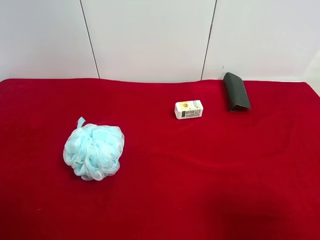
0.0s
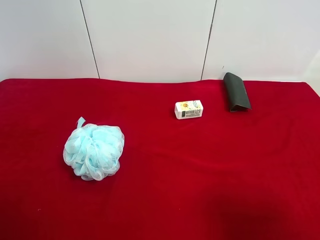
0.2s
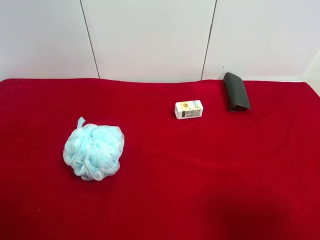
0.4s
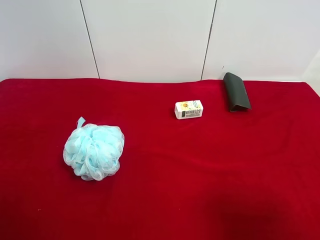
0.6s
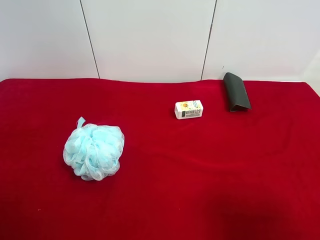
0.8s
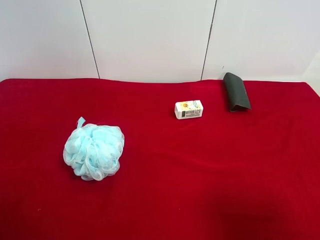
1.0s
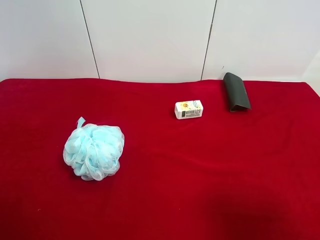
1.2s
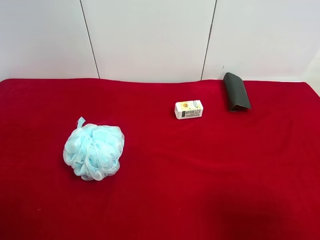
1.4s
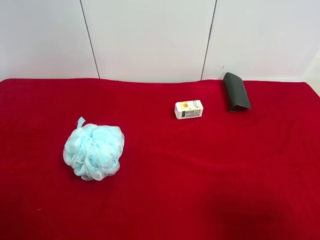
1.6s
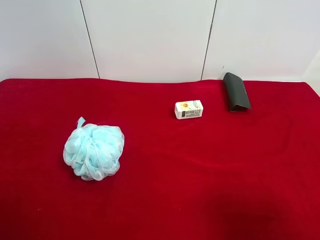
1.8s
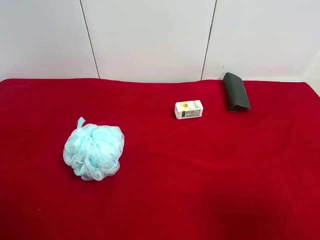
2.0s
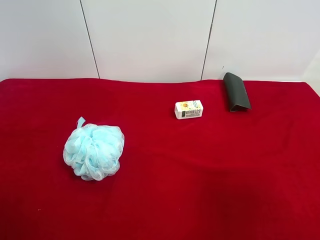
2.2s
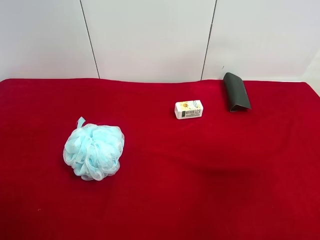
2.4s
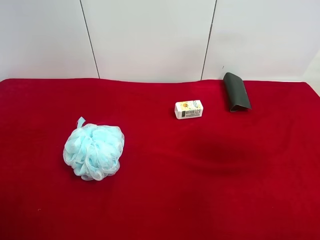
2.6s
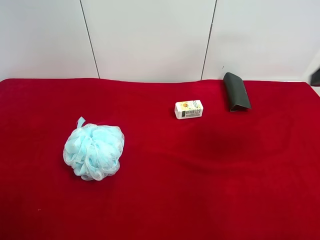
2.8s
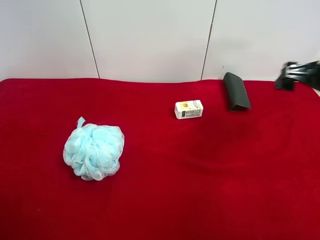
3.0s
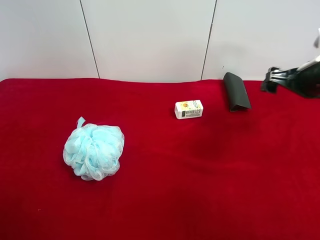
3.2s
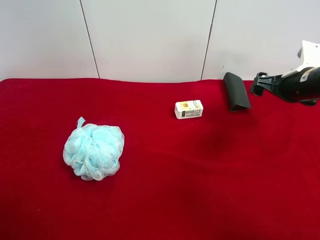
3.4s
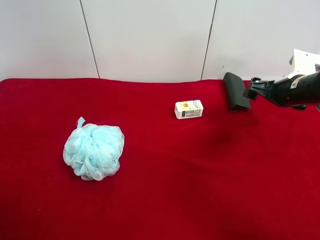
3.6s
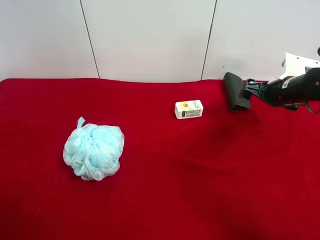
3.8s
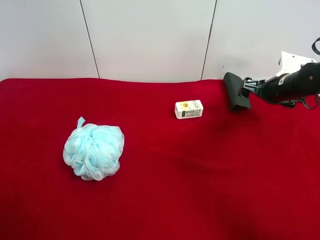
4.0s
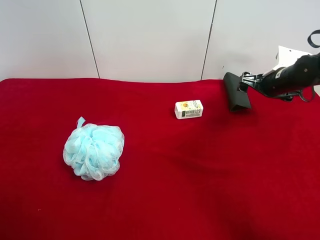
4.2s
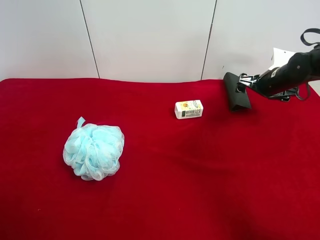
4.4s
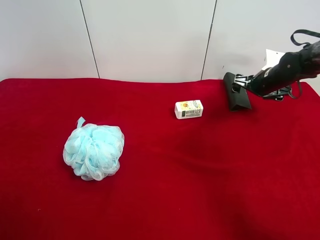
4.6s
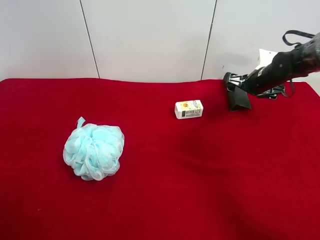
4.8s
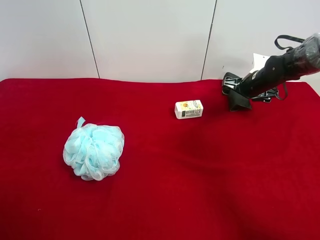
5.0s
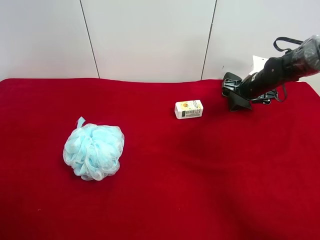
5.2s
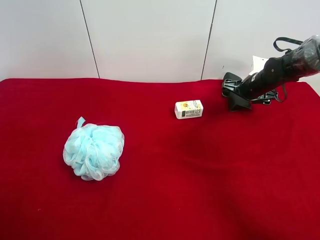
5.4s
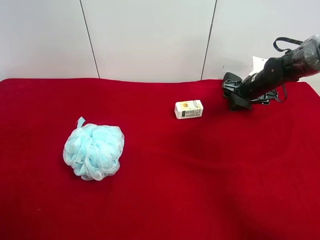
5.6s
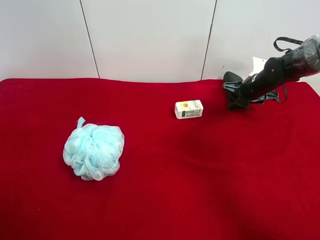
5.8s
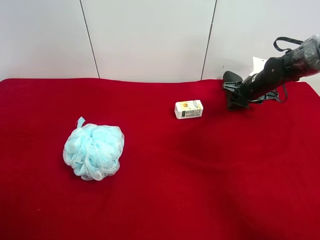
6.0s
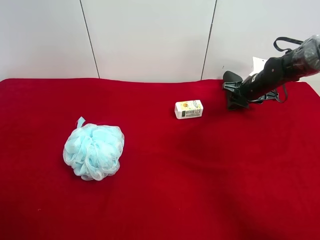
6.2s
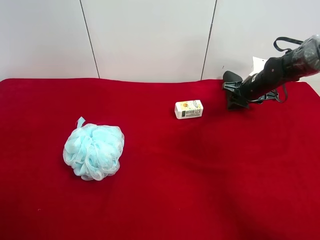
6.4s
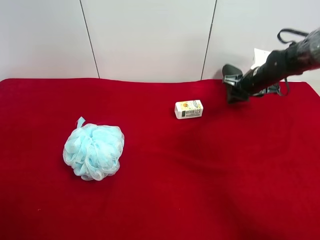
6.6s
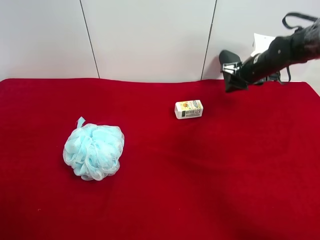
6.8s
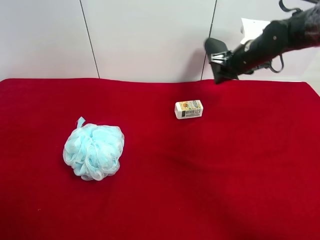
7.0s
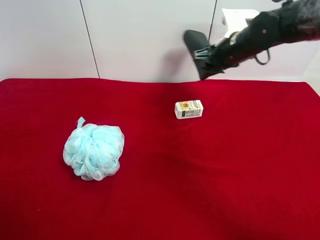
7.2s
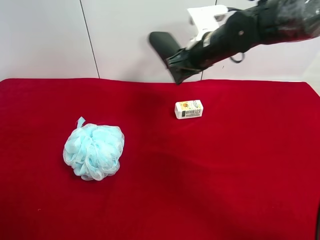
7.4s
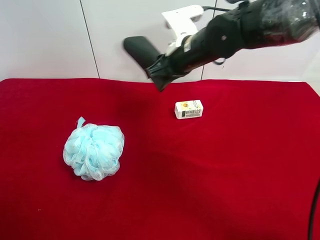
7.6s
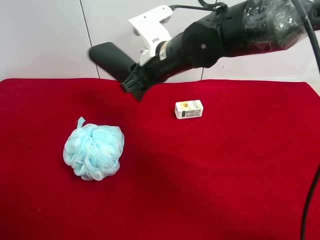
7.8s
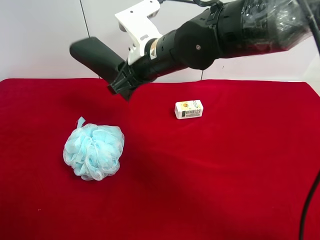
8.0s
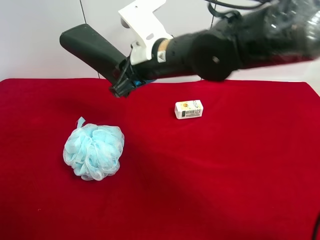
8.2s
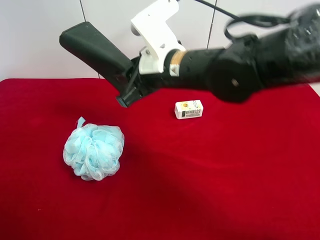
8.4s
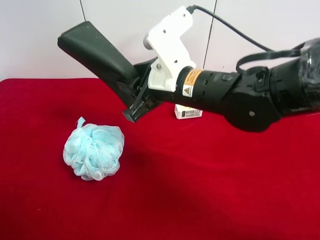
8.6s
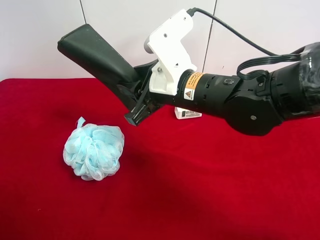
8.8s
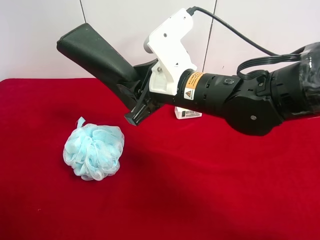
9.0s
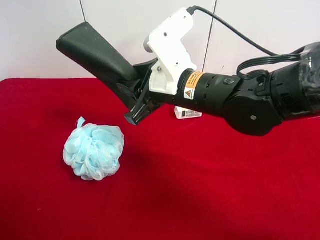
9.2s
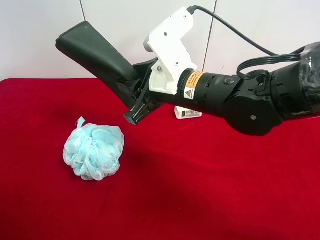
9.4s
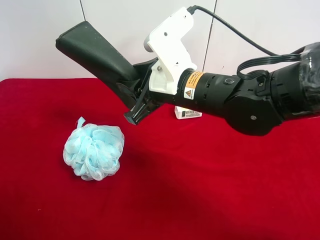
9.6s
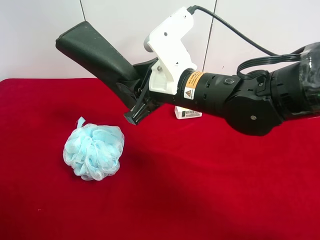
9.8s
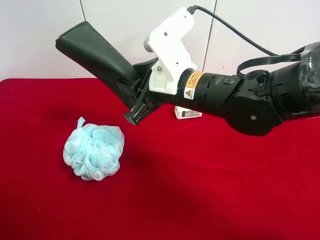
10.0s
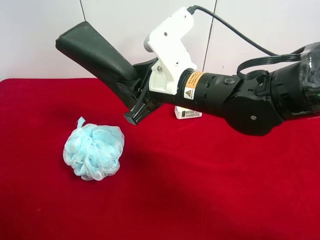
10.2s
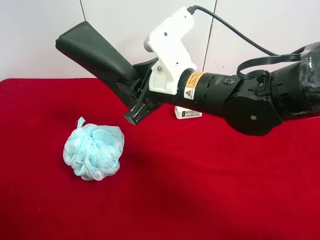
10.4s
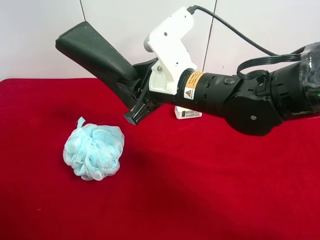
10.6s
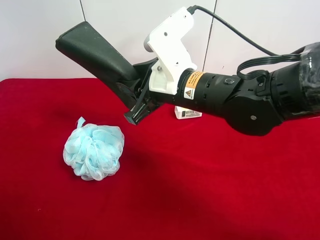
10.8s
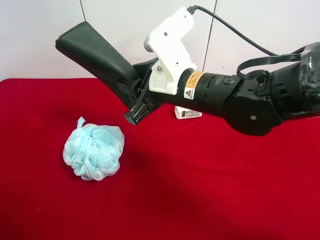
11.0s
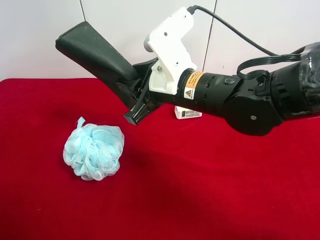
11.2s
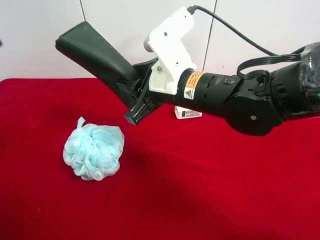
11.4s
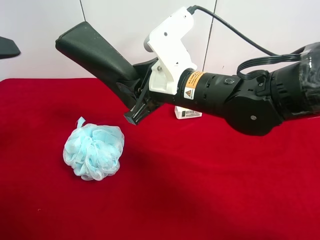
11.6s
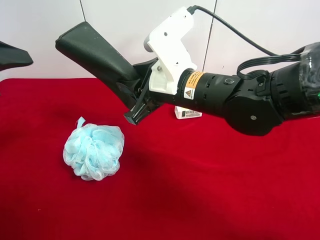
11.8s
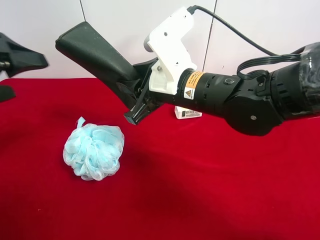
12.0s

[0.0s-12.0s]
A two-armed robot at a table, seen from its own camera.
Task of the whole recording: use the right gripper to pick up the item and transfer it from the right gripper to the left gripper.
Step, 0.0s to 5.8s: Use the right gripper to grab the eyeglass case on the right side of the table.
0.0s to 1.6s: The two grippers keep their place.
1.6s to 3.0s: The right gripper goes some 25 cm forward.
3.0s to 4.4s: The right gripper travels forward and downward by about 20 cm.
4.4s to 6.0s: The right gripper ends up about 5 cm from where it was, and closes up.
6.0s to 7.6s: The right gripper is displaced to the left and upward by about 25 cm.
7.6s to 9.0s: The right gripper heads backward, covering approximately 10 cm.
9.0s to 10.4s: The grippers make only small movements.
10.4s to 12.0s: The left gripper shifts about 20 cm forward.

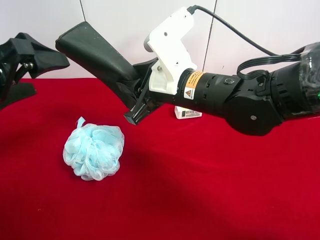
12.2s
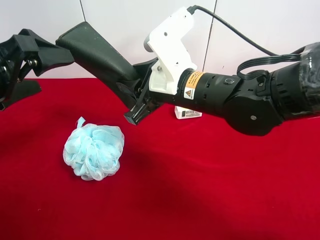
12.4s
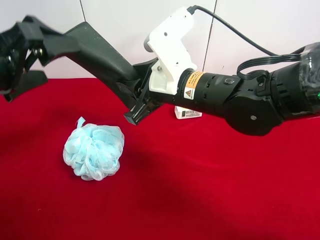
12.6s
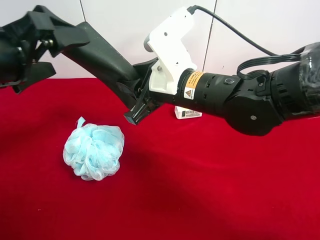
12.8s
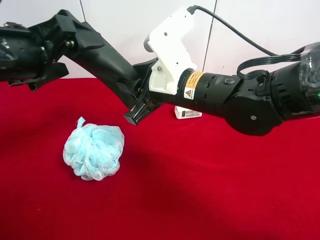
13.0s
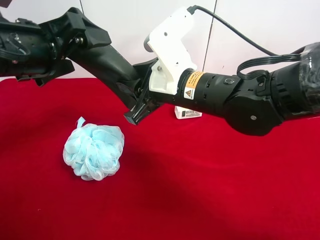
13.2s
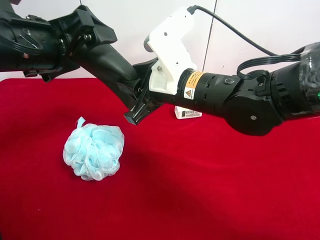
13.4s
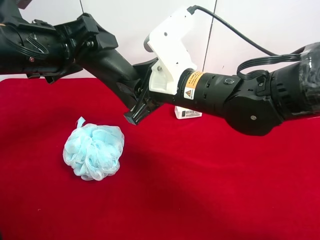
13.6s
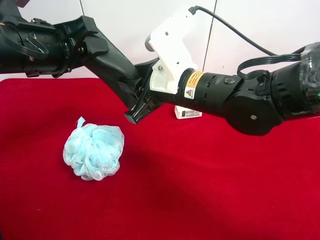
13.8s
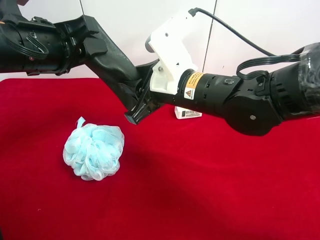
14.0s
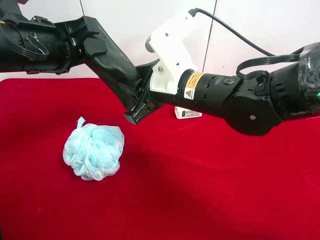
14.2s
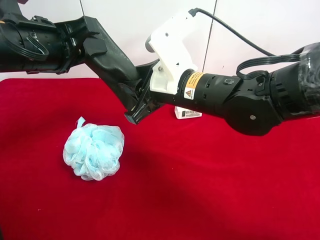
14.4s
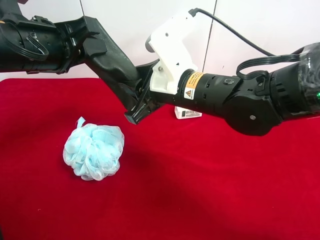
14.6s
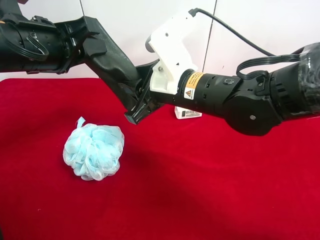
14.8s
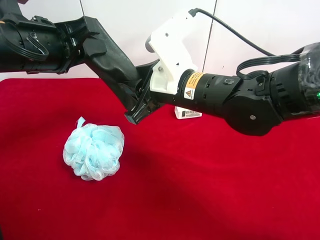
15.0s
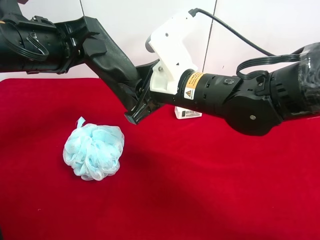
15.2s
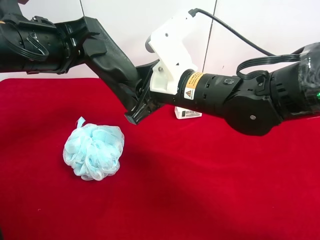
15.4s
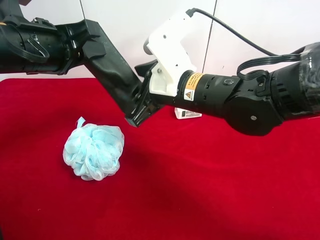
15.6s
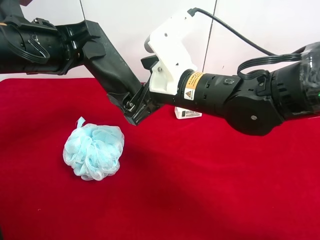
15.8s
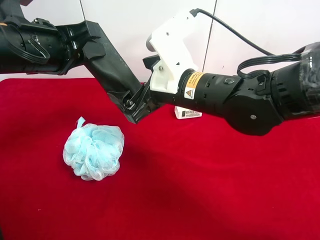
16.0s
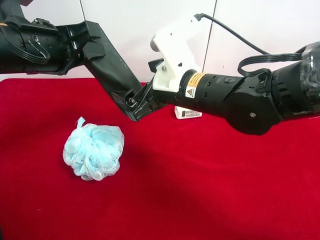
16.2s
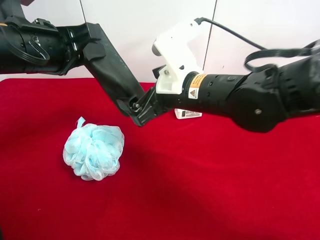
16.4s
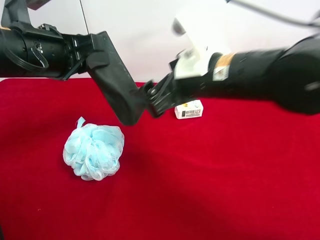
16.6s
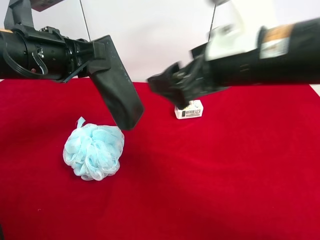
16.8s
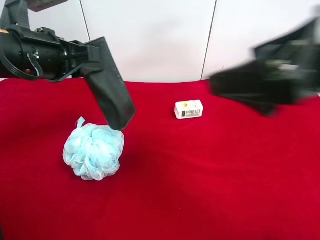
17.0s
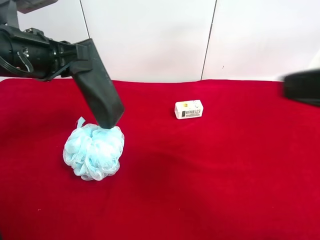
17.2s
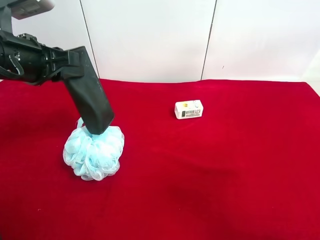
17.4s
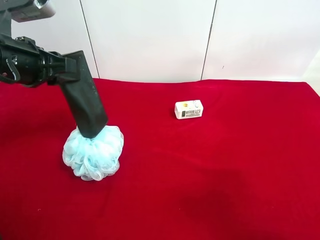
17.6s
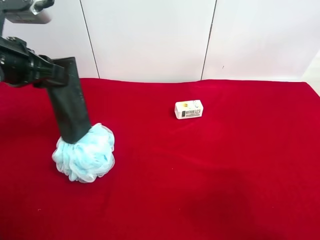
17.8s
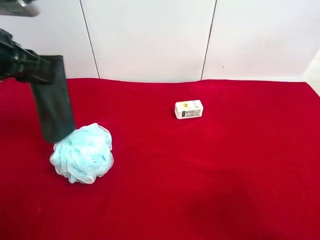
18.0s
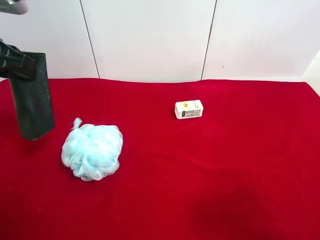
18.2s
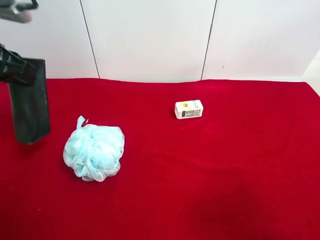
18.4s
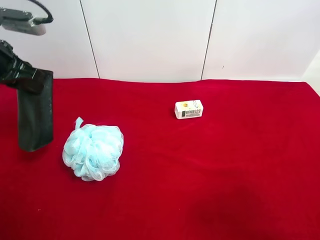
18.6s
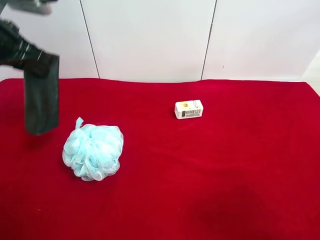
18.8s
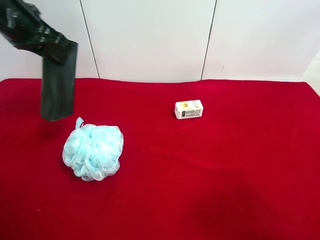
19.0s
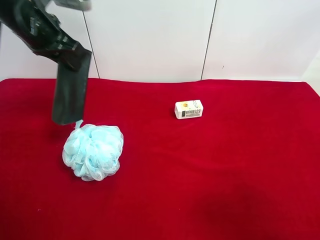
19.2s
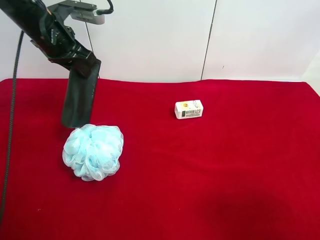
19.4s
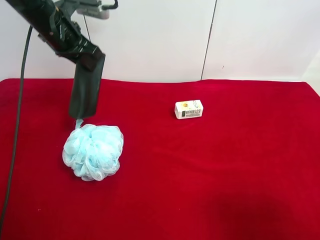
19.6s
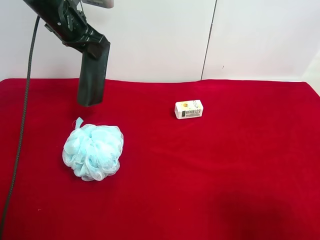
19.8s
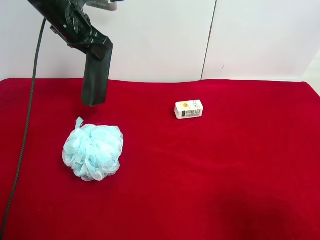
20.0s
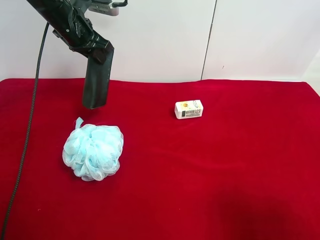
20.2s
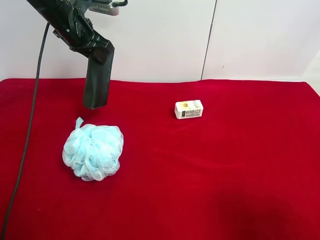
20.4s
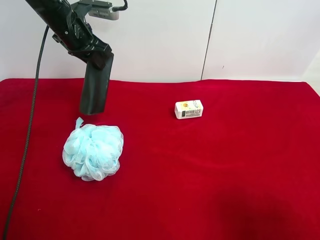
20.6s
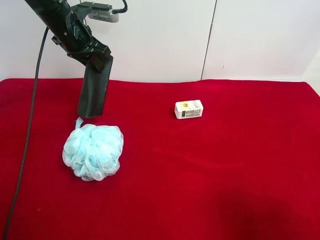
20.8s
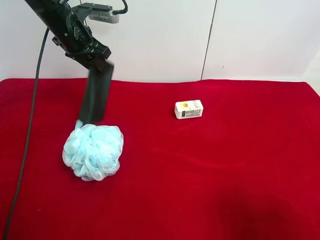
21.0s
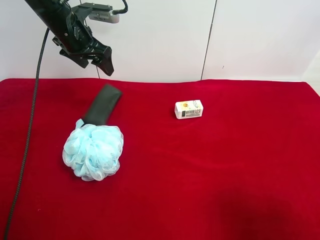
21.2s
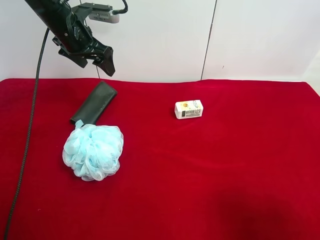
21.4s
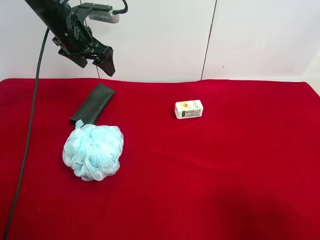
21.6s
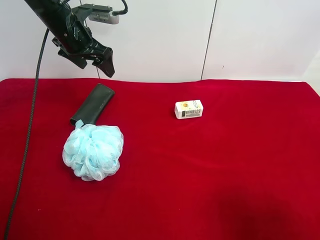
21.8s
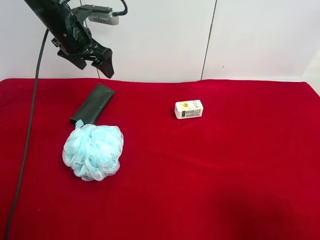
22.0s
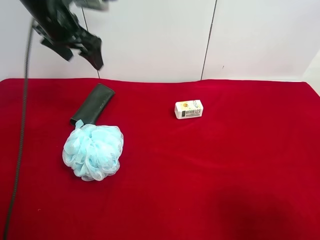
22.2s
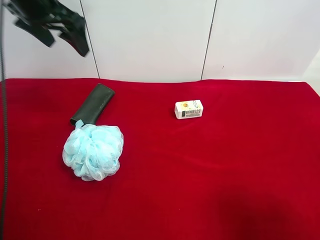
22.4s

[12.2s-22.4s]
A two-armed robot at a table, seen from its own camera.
Task of the whole recording: use the right gripper to pick up the item and transfer it from the right gripper to the left gripper.
Step, 12.2s to 15.6s: Pass the eyeglass case to the left gripper.
Step, 15.8s to 21.2s: The left gripper places eyeglass case on the left side of the table.
12.2s to 13.6s: The left gripper moves to the right and forward, approximately 10 cm.
13.6s to 15.2s: The left gripper closes its fingers.
15.2s to 16.6s: The right gripper changes place by roughly 5 cm, and opens up.
16.6s to 18.0s: The left gripper heads to the left, covering approximately 10 cm. The right gripper shifts some 30 cm to the right and backward.
18.0s to 19.4s: The left gripper heads forward and to the right, covering approximately 15 cm.
19.4s to 21.0s: The left gripper moves approximately 5 cm, and opens its fingers.
21.0s to 22.4s: The left gripper moves upward and backward, about 10 cm, and opens its fingers.
